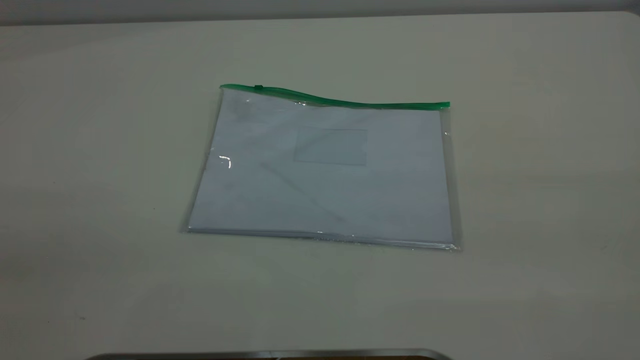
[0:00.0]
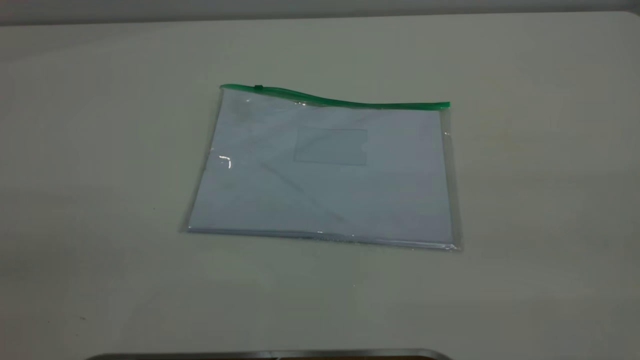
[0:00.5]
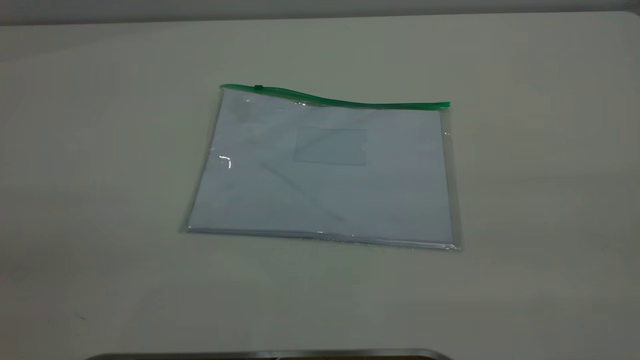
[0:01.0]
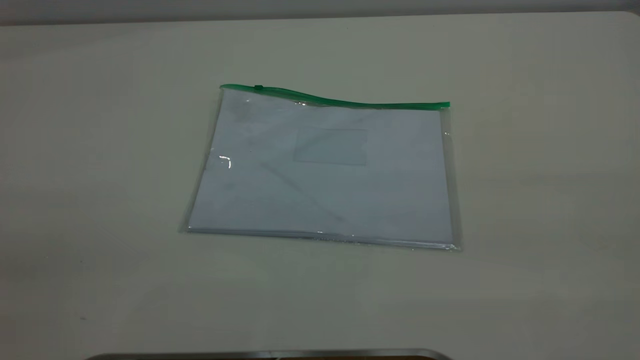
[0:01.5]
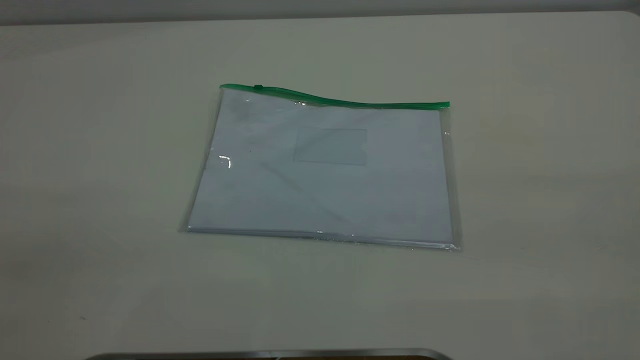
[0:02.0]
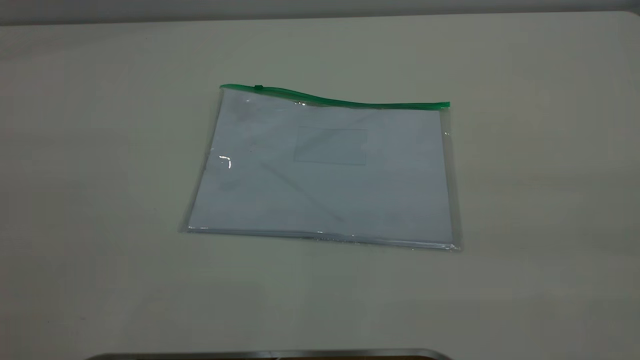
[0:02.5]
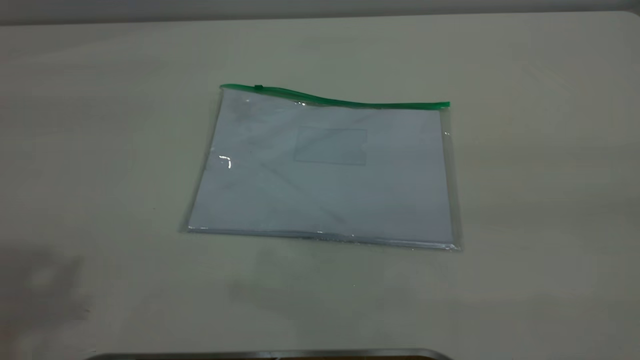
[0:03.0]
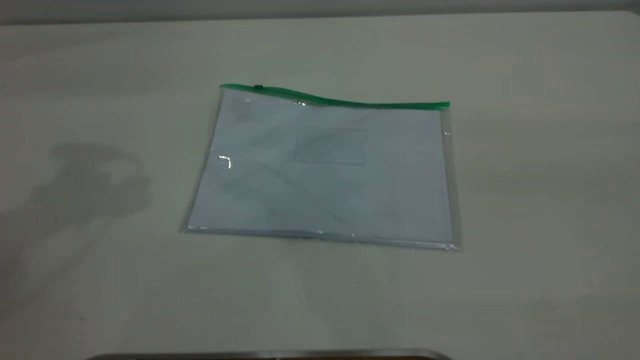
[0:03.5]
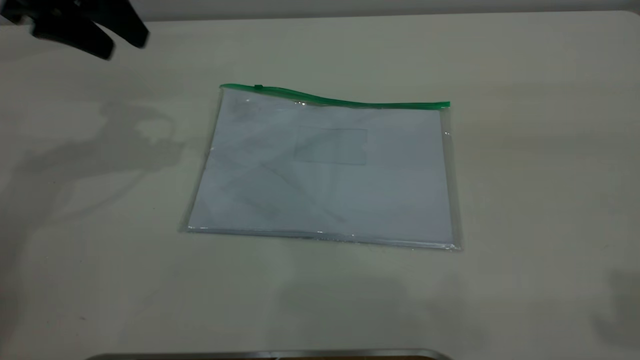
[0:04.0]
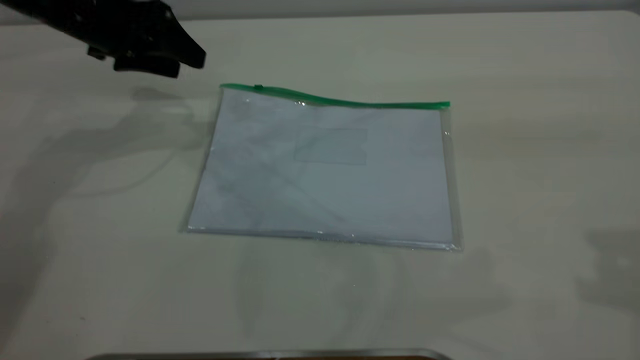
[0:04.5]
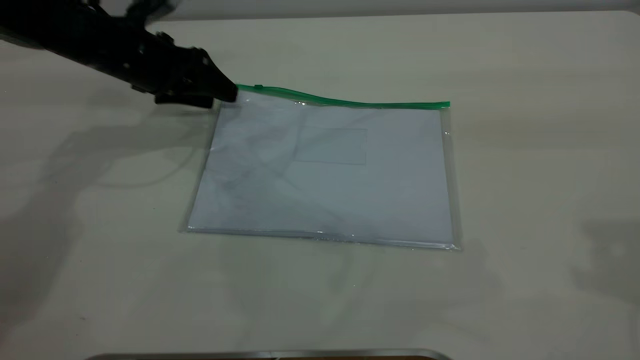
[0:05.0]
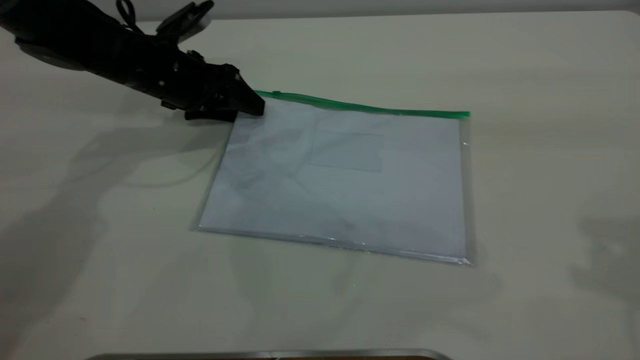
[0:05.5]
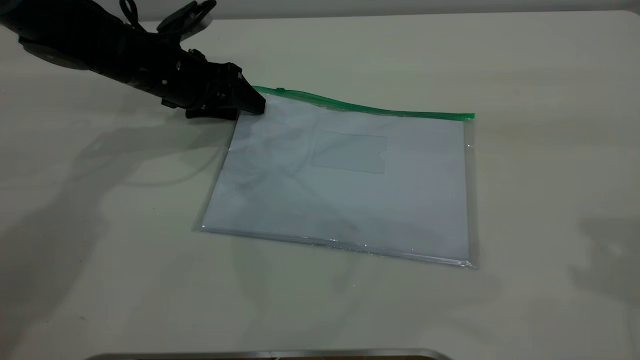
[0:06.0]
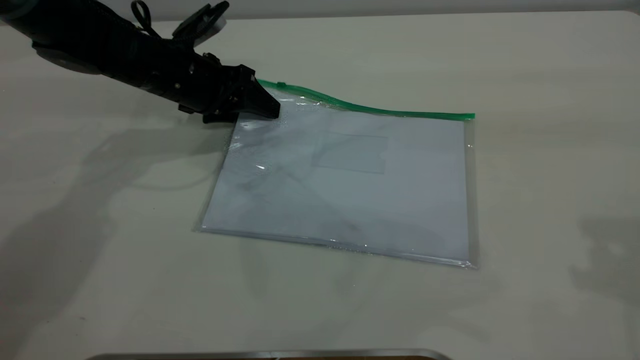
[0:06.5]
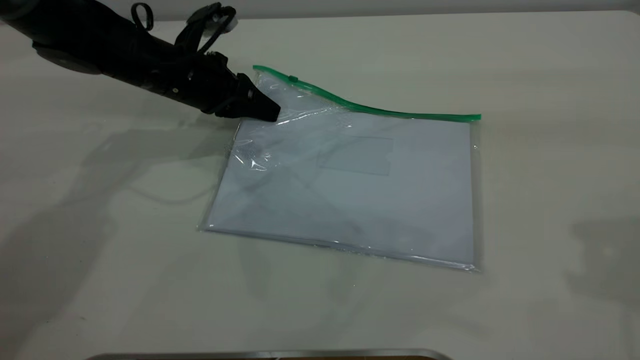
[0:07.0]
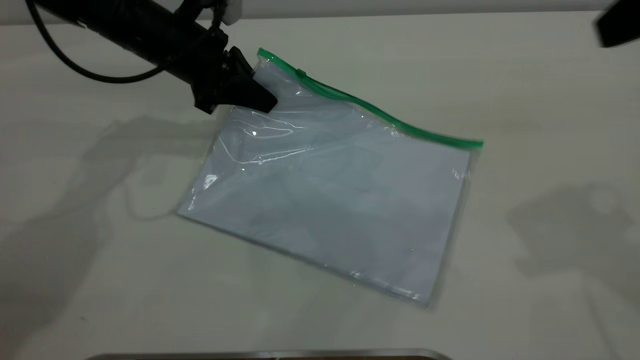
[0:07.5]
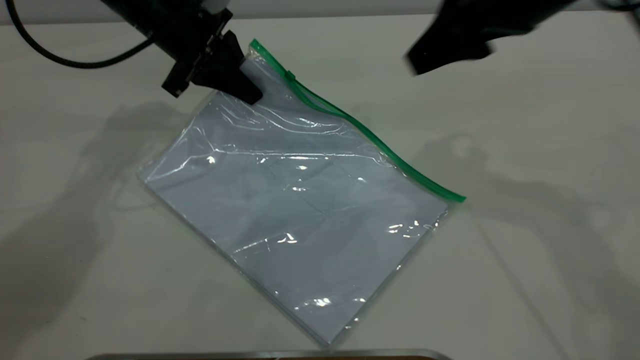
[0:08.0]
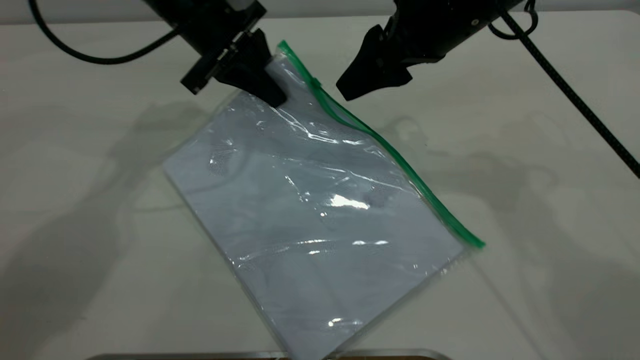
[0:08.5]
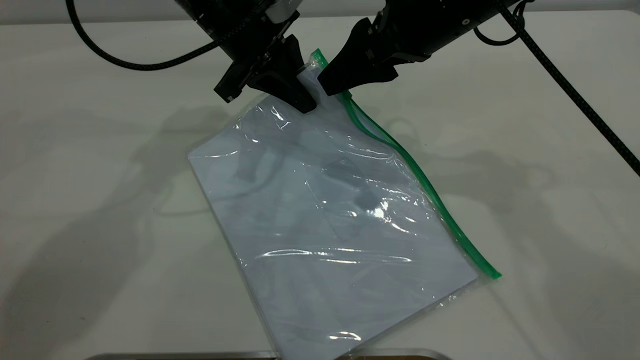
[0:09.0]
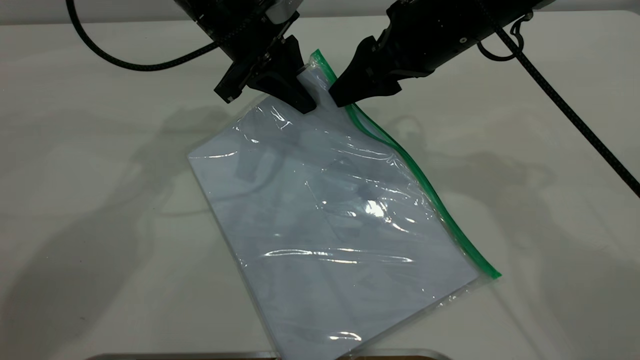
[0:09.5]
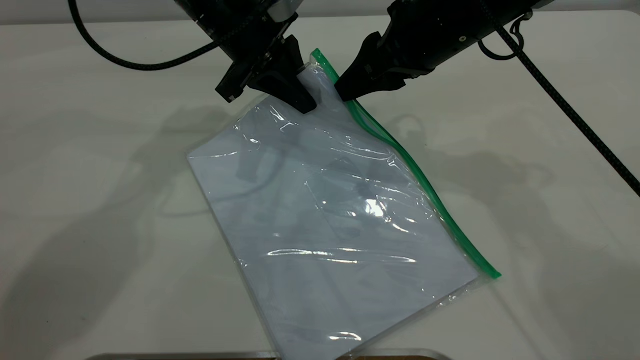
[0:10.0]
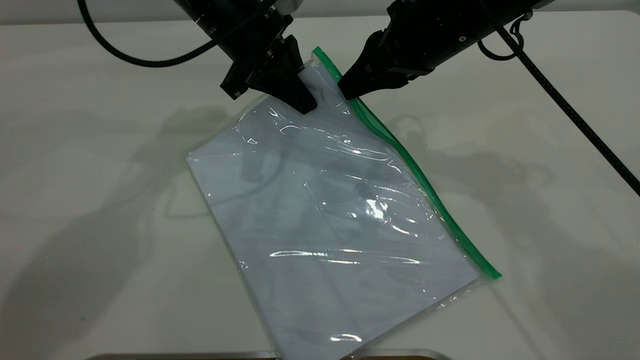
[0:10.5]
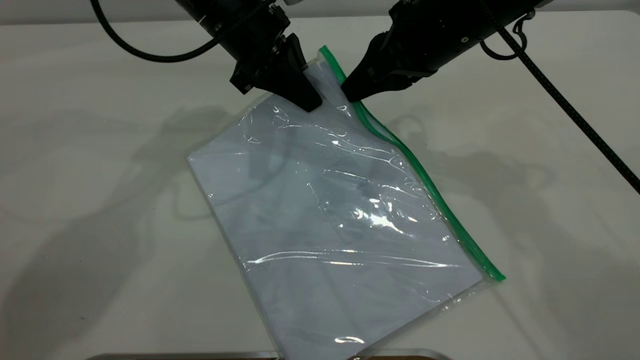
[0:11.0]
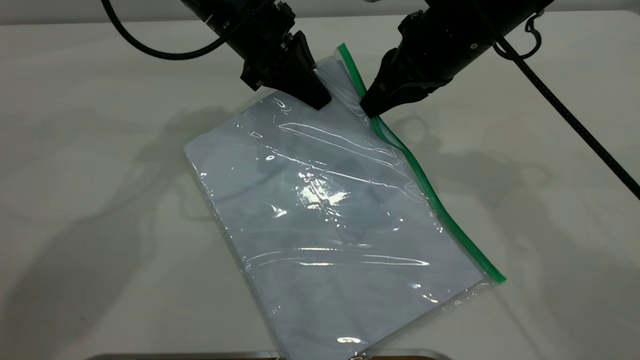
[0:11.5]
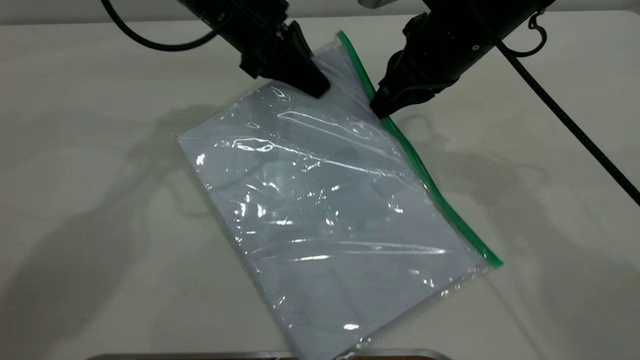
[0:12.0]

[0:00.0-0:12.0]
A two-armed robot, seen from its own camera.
Step, 0:00.0 to 0:07.0: Pick up the transparent plastic bag with the left gripper.
0:00.0 to 0:02.0: The two grippers keep their place.
0:02.0 to 0:04.0: The left gripper goes approximately 40 cm forward.
0:04.0 to 0:06.0: The left gripper moves downward and to the right, roughly 15 cm. Meanwhile the right gripper moves forward, roughly 5 cm.
0:06.0 to 0:08.0: The right gripper heads forward, to the left and downward, covering roughly 20 cm, while the left gripper heads upward, covering roughly 10 cm, and closes.
0:08.0 to 0:10.0: The left gripper goes some 5 cm to the right. The right gripper goes about 5 cm downward, and closes its fingers.
0:10.0 to 0:12.0: The right gripper closes up.

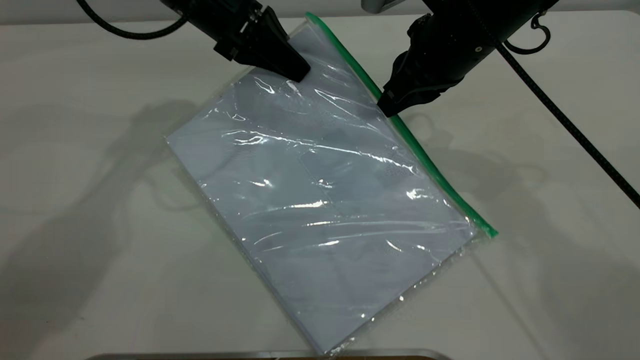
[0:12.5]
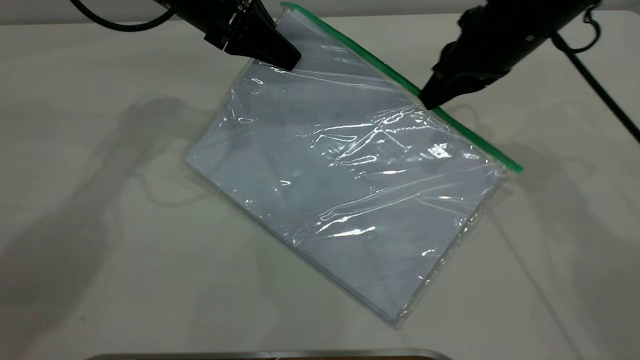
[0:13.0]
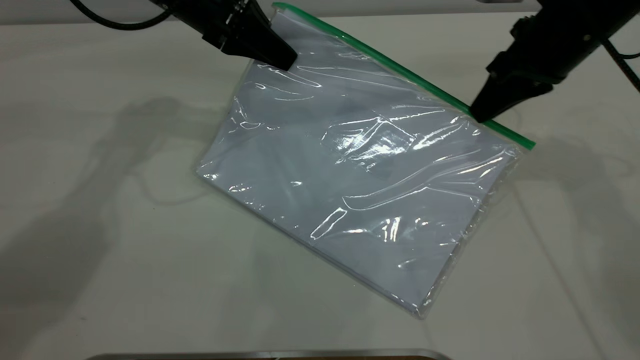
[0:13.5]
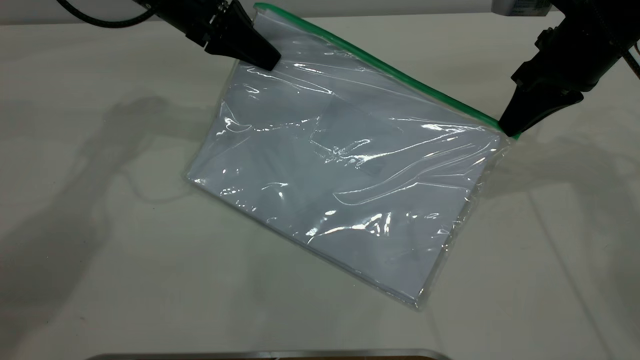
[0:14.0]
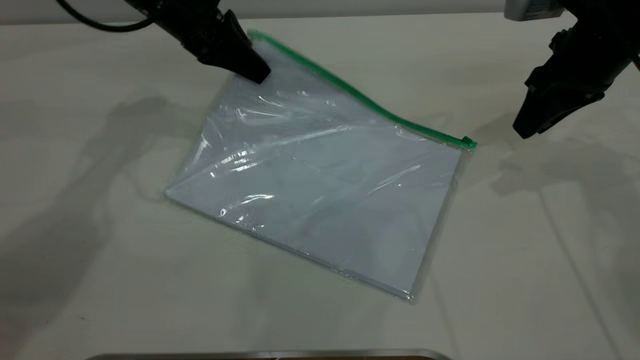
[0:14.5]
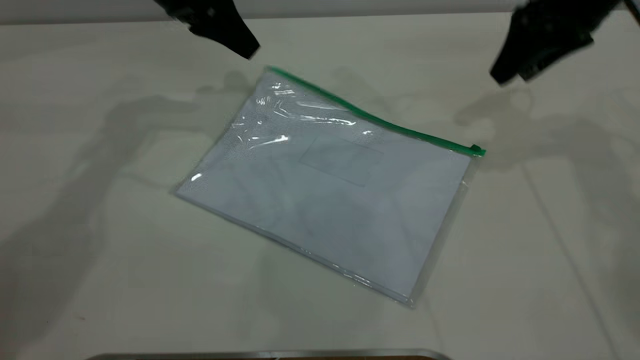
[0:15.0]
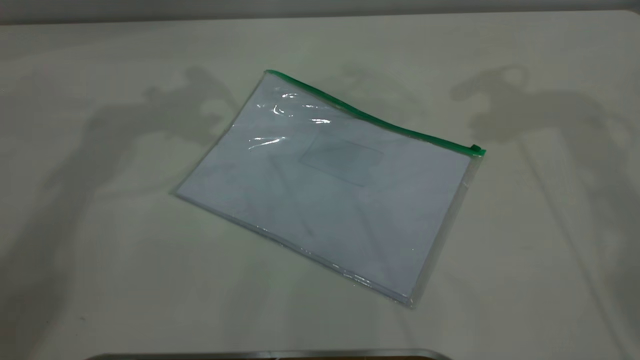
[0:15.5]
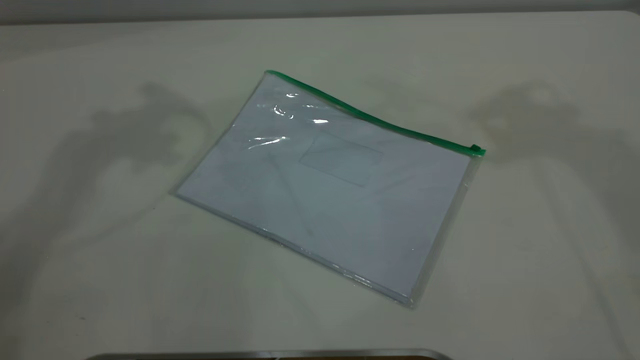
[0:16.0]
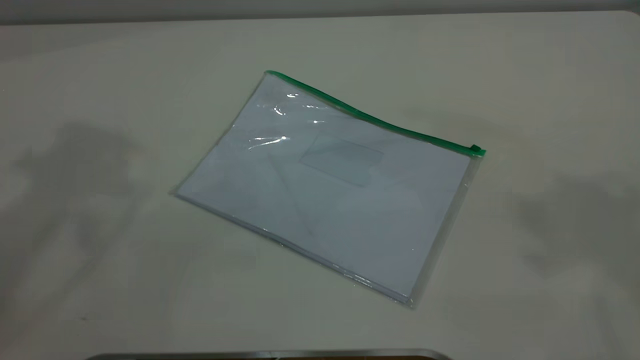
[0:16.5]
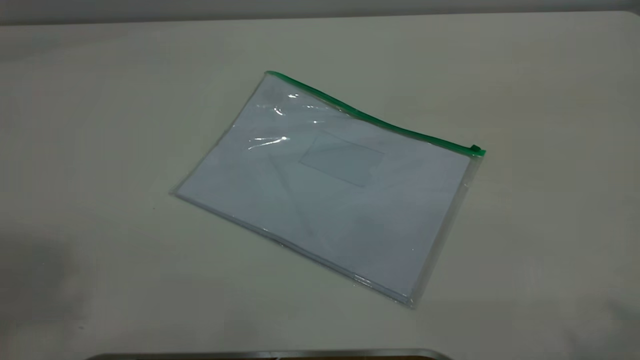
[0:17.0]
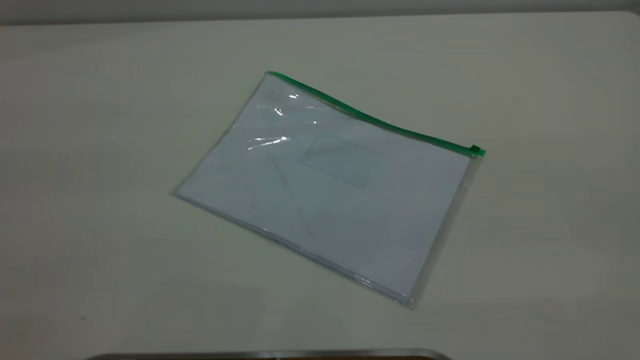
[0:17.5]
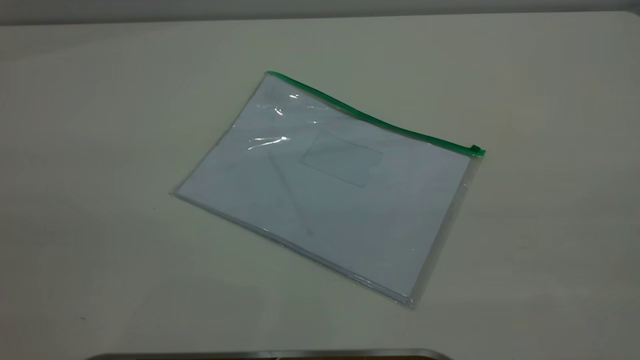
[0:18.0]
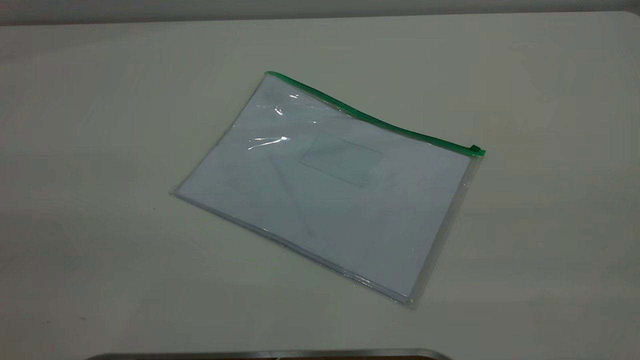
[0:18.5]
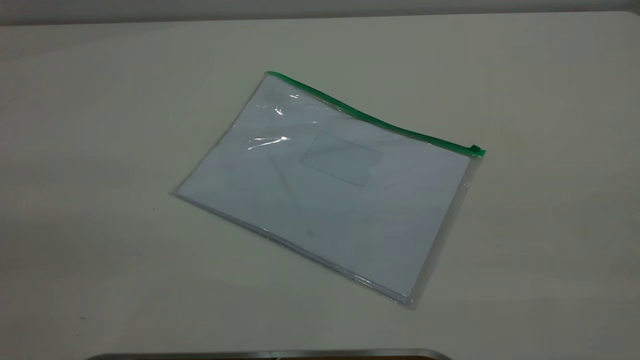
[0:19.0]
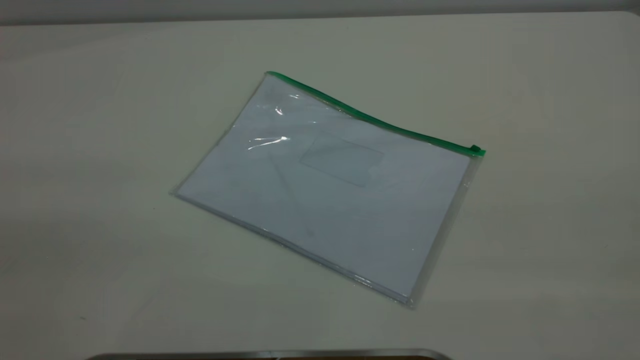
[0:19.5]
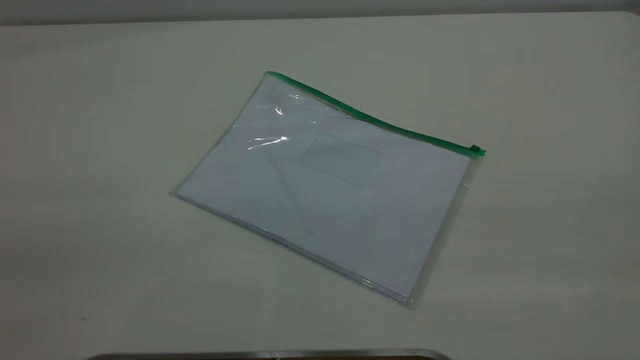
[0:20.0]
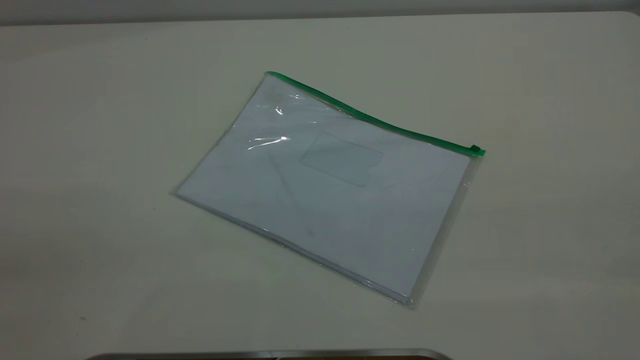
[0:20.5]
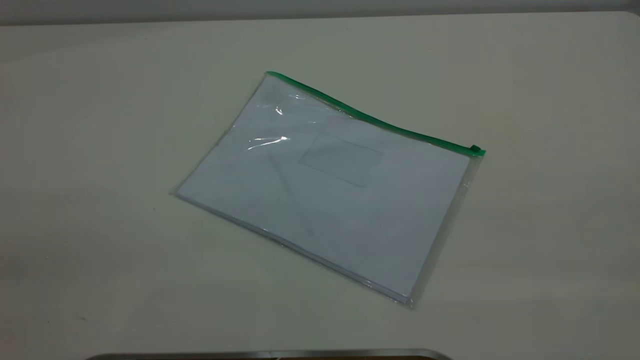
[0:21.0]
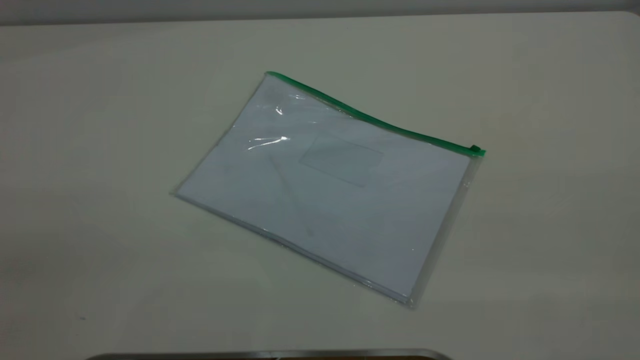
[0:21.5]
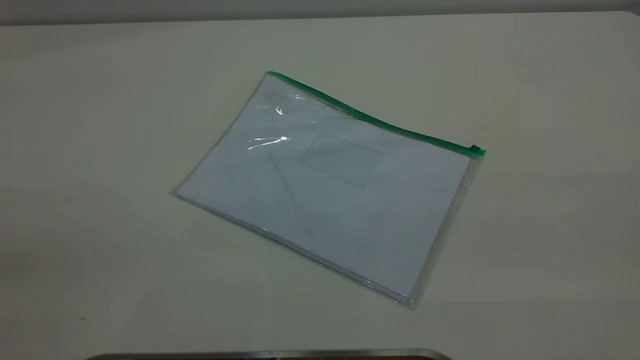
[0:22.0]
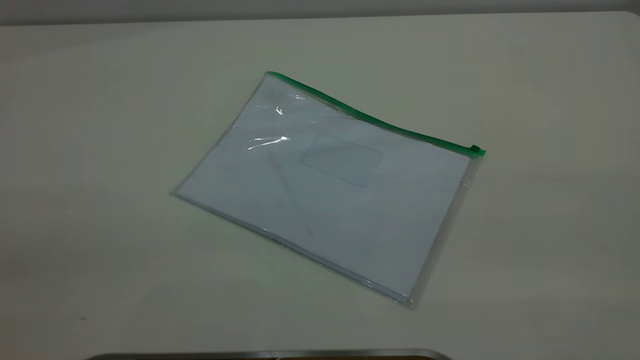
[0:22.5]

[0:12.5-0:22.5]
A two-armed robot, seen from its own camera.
Step, 0:14.5 to 0:15.0: Place the transparent plastic bag.
0:12.5 to 0:14.5: The left gripper opens up, while the right gripper shifts approximately 15 cm to the right, and opens.
0:14.5 to 0:16.5: The grippers both shift upward by approximately 40 cm. The left gripper opens.
